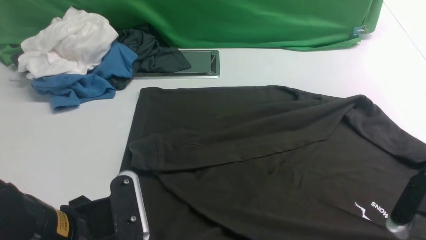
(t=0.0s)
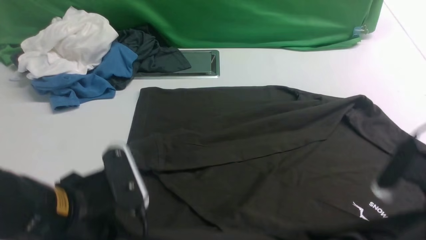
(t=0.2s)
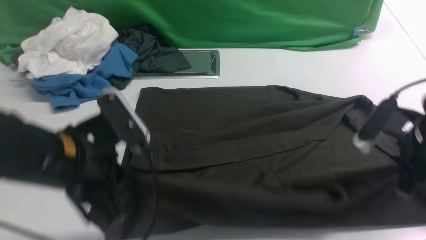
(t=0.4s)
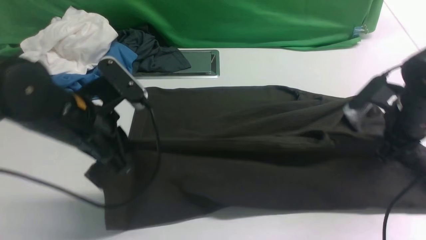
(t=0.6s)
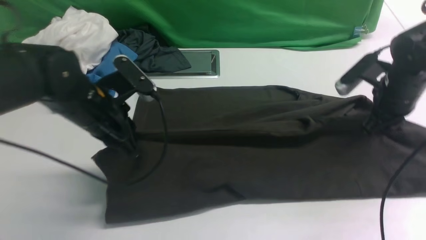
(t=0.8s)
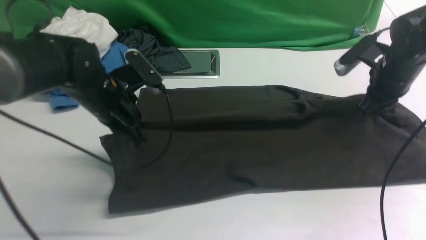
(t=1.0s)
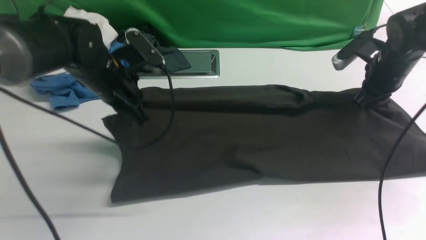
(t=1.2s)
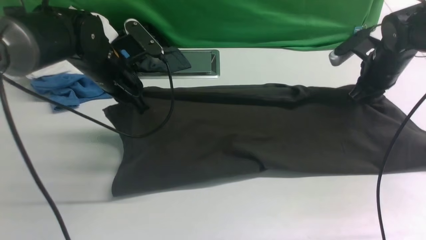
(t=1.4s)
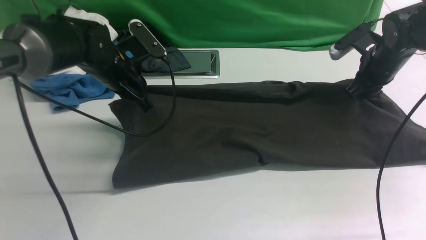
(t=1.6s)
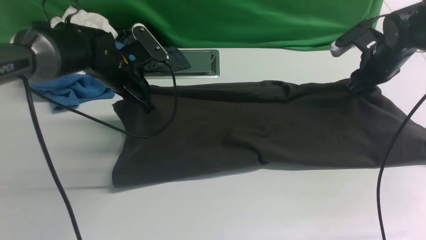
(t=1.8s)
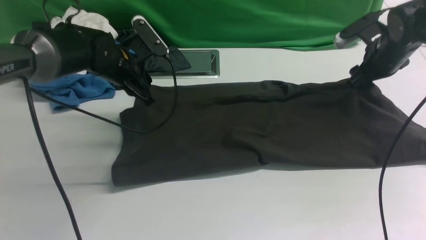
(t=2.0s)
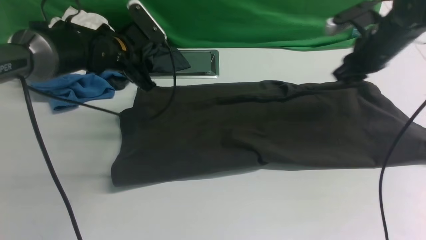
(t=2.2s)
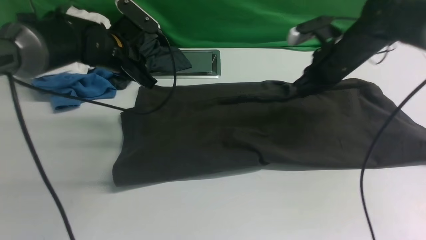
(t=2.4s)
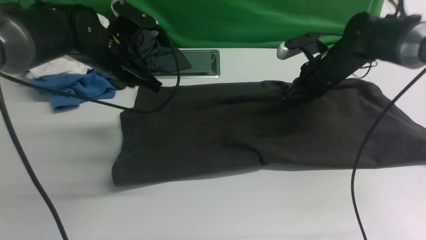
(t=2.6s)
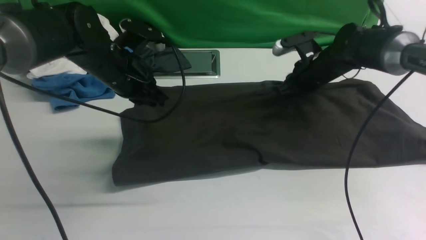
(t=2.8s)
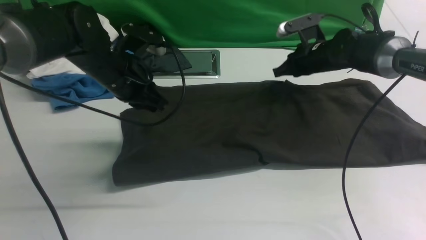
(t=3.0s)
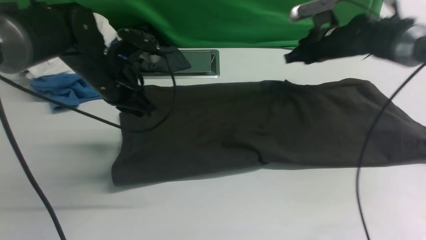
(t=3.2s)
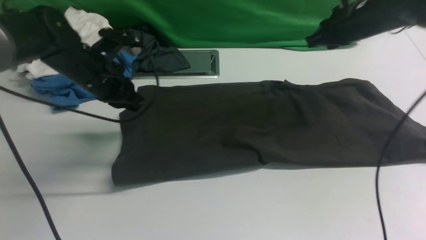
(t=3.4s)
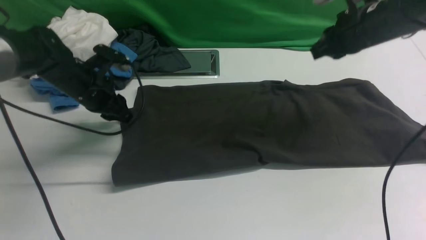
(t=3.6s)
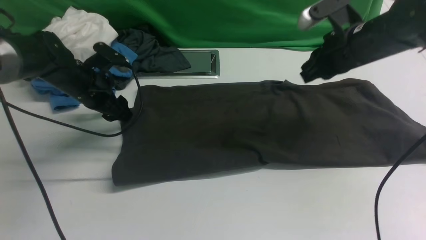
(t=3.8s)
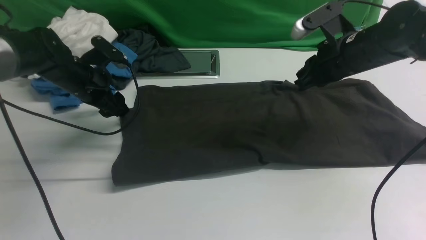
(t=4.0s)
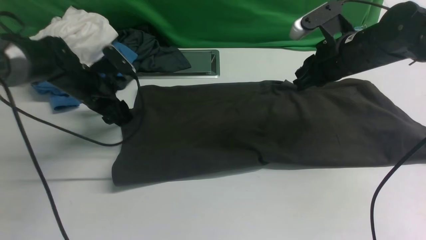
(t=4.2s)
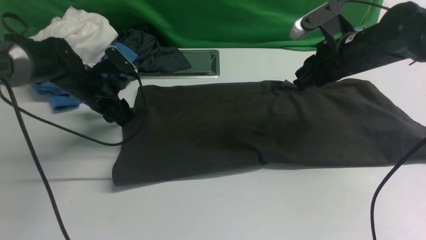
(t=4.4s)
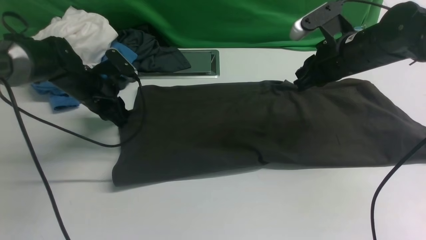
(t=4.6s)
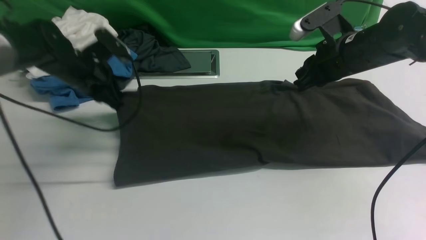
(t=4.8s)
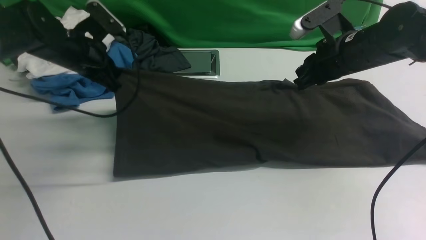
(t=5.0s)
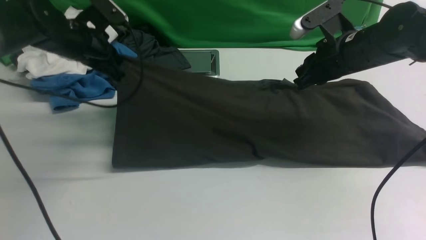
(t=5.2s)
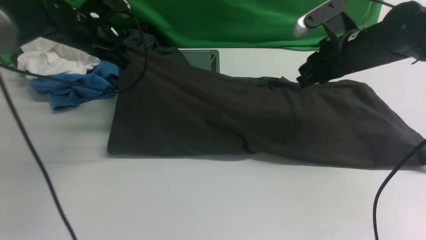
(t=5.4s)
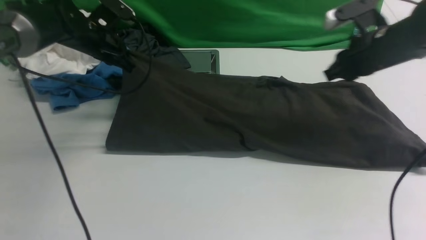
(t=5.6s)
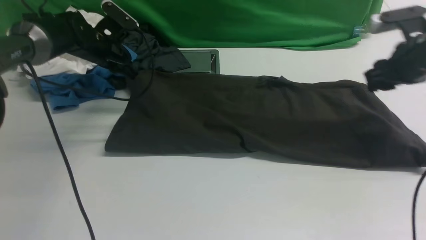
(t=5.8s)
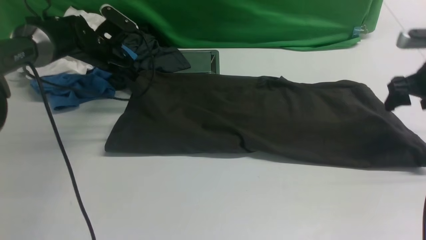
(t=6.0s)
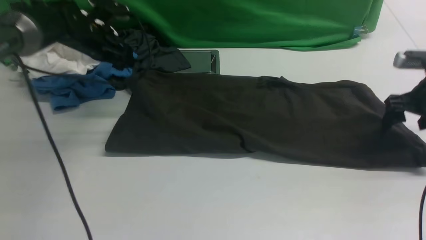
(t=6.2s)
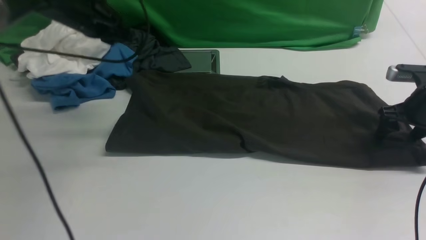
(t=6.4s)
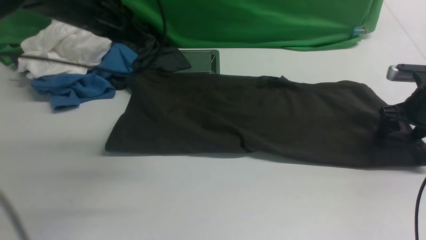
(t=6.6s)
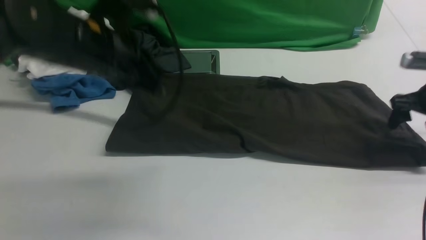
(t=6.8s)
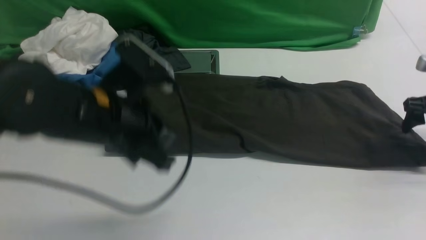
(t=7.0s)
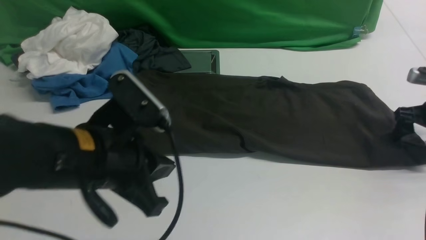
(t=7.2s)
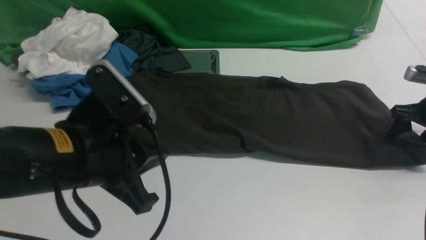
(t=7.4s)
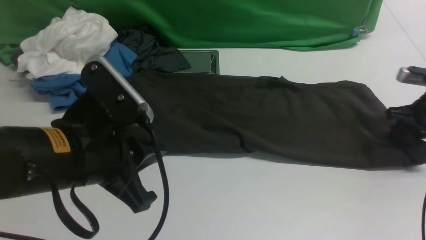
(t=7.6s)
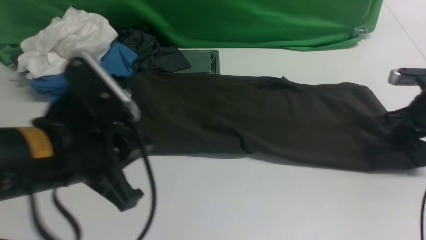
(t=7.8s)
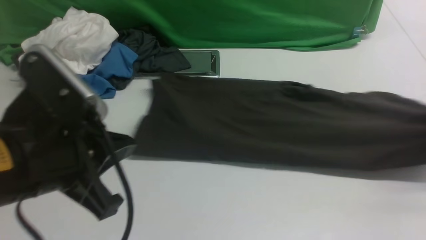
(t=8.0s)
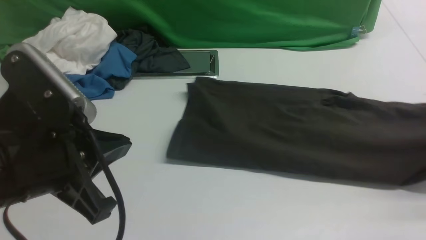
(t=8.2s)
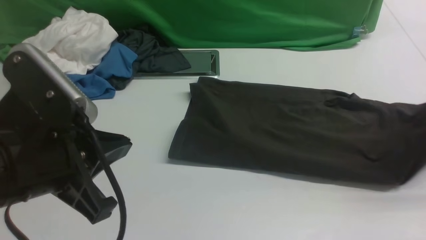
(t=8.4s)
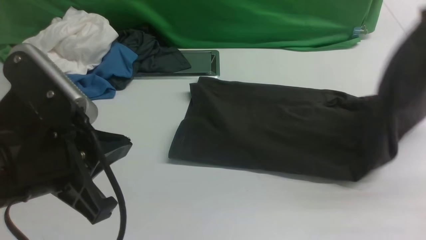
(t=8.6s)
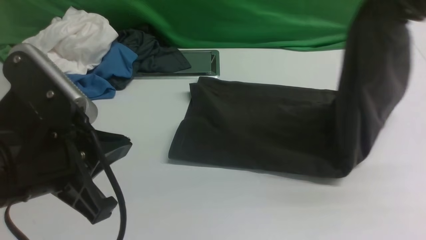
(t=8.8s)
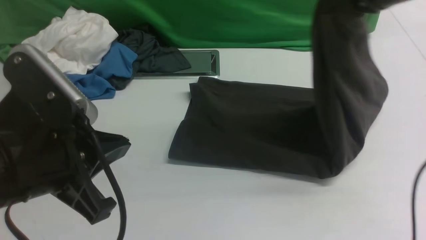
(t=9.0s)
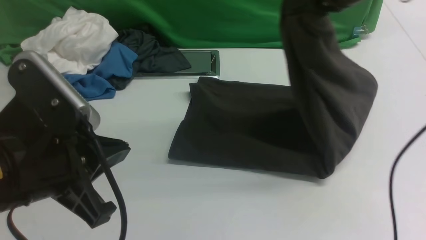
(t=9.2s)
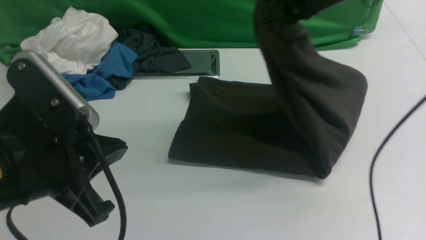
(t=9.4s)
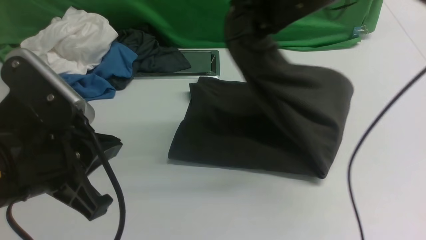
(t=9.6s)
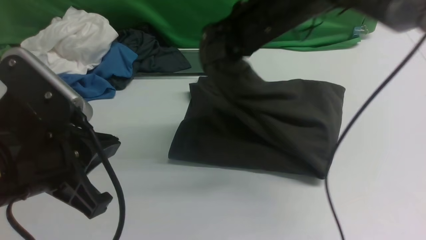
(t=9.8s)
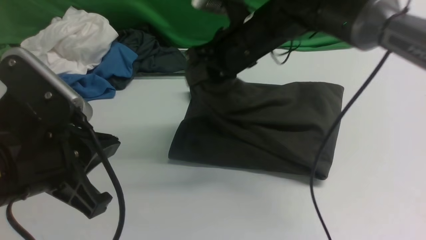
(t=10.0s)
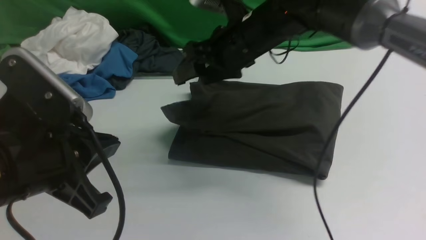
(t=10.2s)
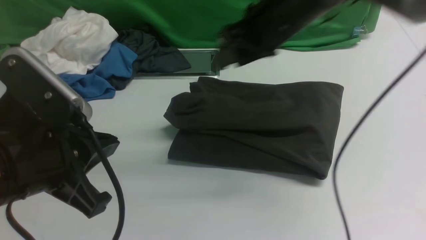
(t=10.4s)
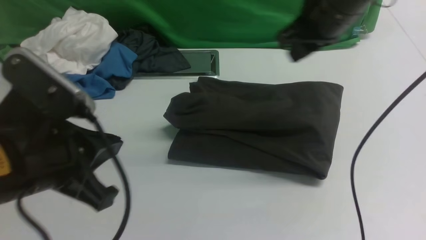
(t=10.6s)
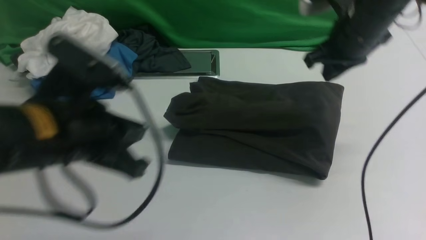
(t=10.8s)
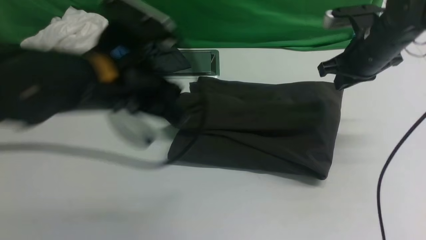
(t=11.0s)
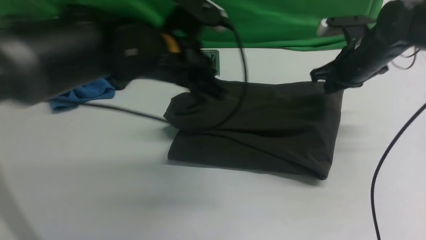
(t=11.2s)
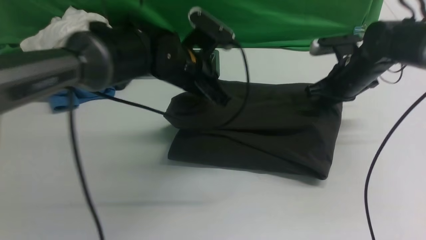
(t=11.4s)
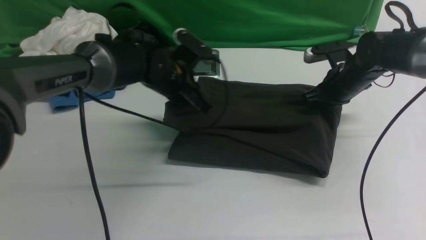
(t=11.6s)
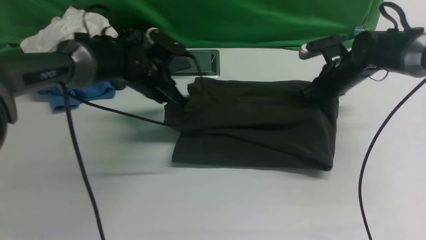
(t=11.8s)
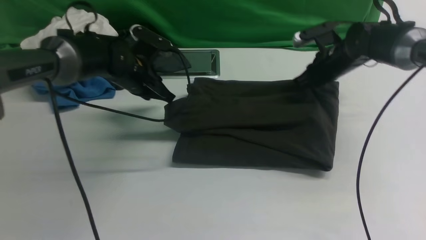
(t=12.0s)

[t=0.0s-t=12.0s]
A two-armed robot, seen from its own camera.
Step, t=0.4s to t=3.2s: use both arms to drag the lower edge of the fabric forward and fold it over the upper edge.
Step, t=3.4s to t=7.8s: use the right arm to clamp the right edge of the fabric.
Step, t=8.0s to t=10.4s: use the right arm to drag the right edge of the fabric to the left and folds it over the left edge.
t=0.0s to t=1.6s: The two grippers go about 30 cm forward.
t=1.6s to t=3.0s: The left gripper opens and closes again, while the right gripper is displaced to the left by some 10 cm.
t=3.0s to t=4.4s: The left gripper shifts approximately 10 cm downward and to the left, and opens up, while the right gripper is displaced backward and upward by approximately 15 cm.
t=4.4s to t=6.0s: The left gripper shifts roughly 5 cm forward, and closes, then opens again. Meanwhile the right gripper goes some 15 cm to the right, and opens.
t=6.0s to t=7.6s: The right gripper is displaced downward by some 5 cm, and closes up, while the left gripper is displaced backward by roughly 30 cm, and closes up.
t=7.6s to t=9.0s: The right gripper heads upward and to the left, covering about 30 cm.
t=9.0s to t=10.4s: The right gripper moves to the left and downward, approximately 10 cm, and opens its fingers.
t=10.4s to t=12.0s: The left gripper goes roughly 30 cm forward. The right gripper heads downward, to the right and forward, covering about 20 cm, and closes.

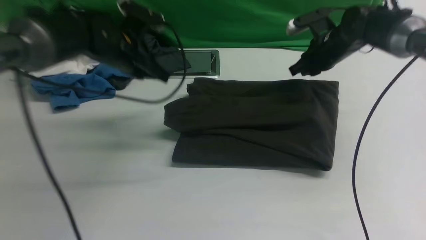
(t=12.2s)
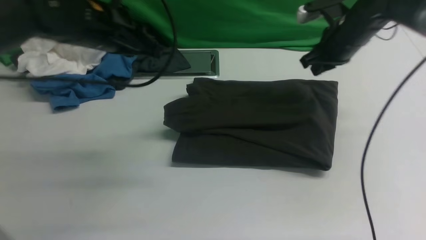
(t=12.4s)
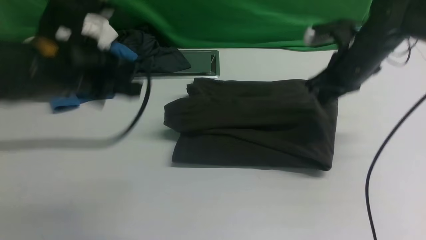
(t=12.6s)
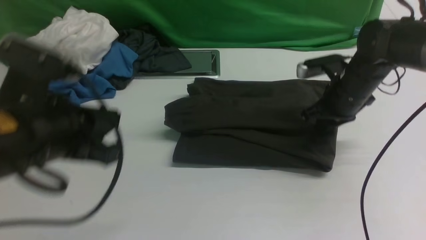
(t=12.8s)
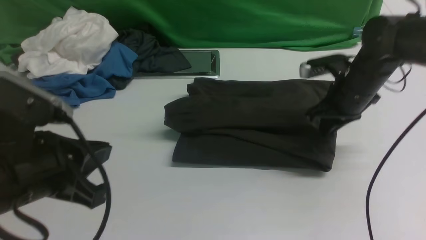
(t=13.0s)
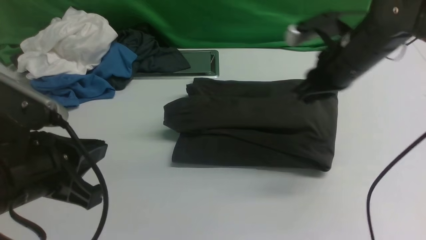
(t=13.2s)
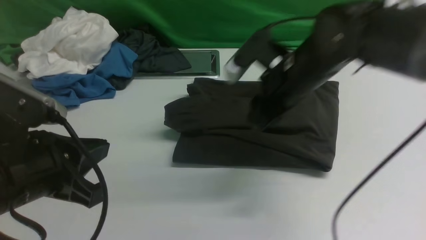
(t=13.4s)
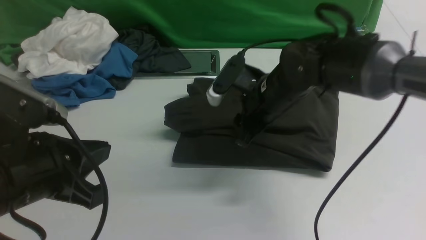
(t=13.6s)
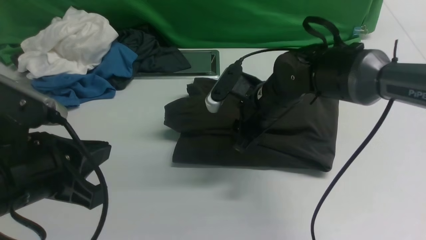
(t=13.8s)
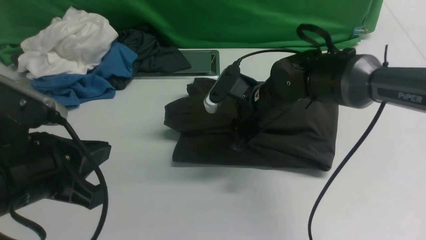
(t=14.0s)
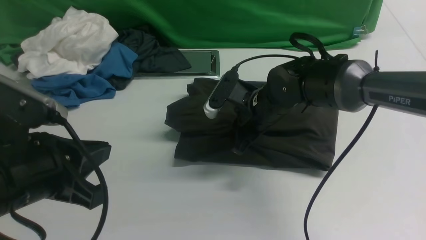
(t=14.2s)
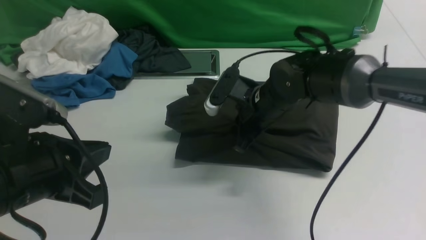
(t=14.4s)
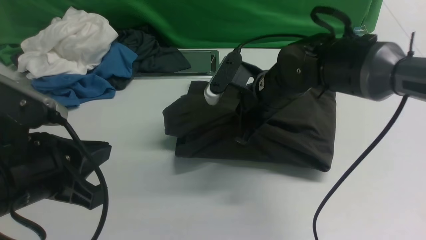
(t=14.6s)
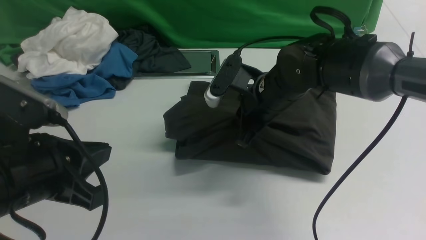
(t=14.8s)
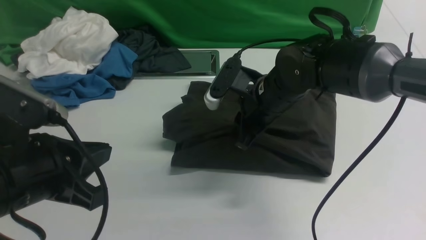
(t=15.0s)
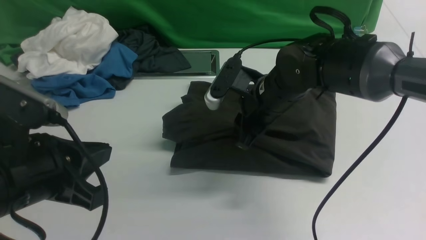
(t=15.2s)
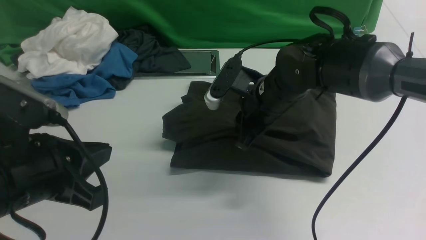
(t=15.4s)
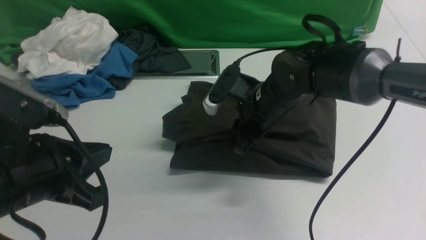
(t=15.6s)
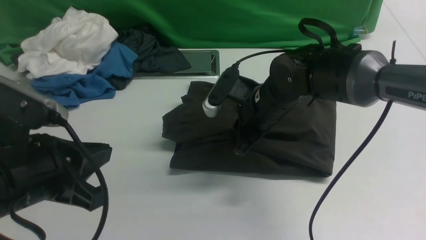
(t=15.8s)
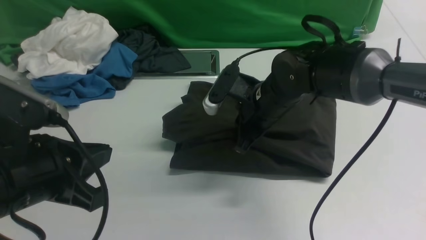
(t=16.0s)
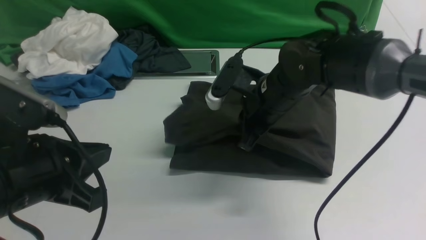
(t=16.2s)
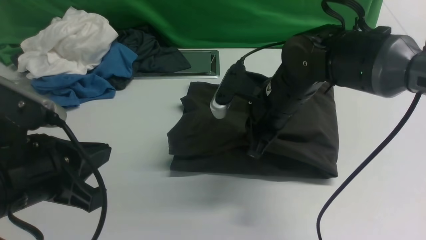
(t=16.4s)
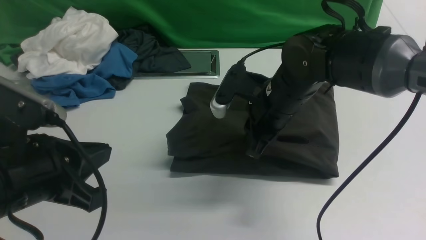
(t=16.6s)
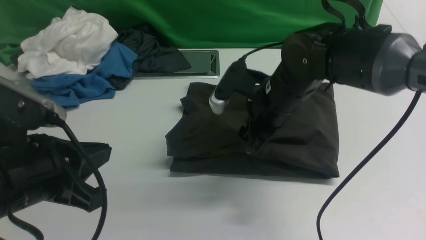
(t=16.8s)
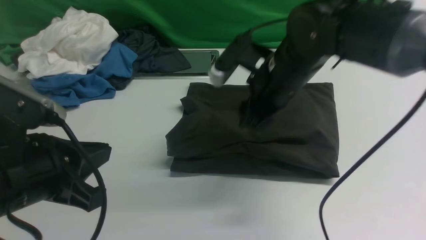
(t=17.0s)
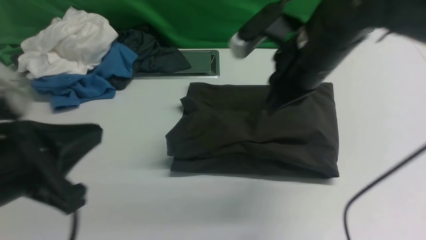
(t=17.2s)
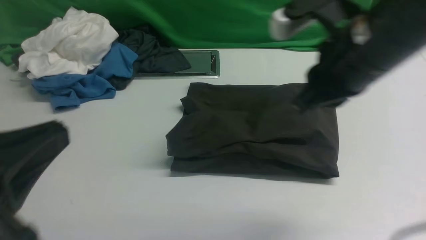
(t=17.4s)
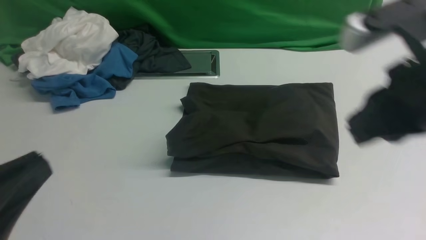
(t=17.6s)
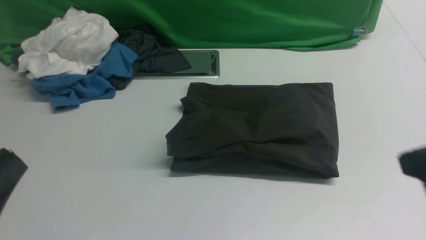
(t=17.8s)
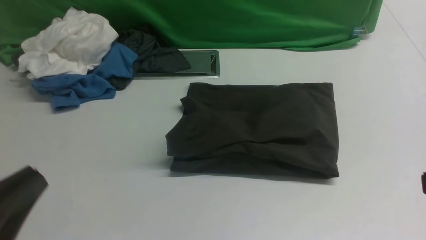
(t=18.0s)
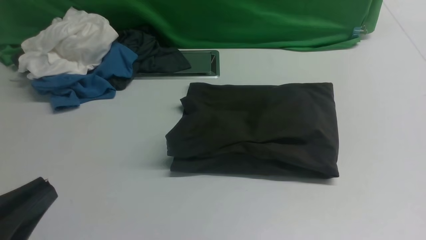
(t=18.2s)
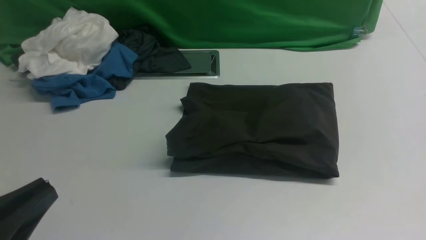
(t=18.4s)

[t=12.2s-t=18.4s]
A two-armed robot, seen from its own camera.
t=12.2s to t=13.8s: The right gripper travels to the left and backward by some 20 cm, and opens up. Meanwhile the left gripper is displaced backward by about 25 cm.
t=13.8s to t=15.4s: There are only small adjustments of the grippers.
t=15.4s to t=16.8s: The right gripper closes, then reopens.
t=16.8s to t=18.4s: The left gripper shifts about 10 cm backward. The right gripper heads backward and to the right, covering roughly 30 cm, and closes its fingers.
